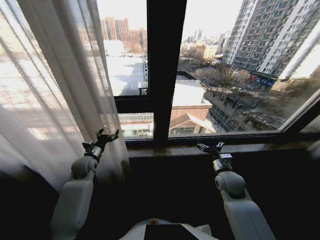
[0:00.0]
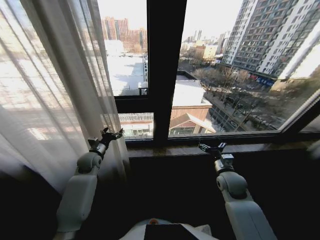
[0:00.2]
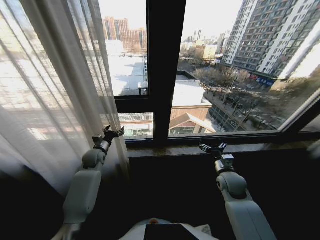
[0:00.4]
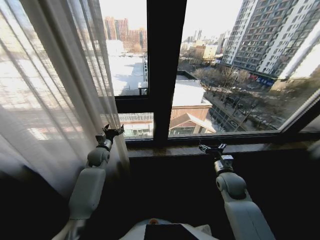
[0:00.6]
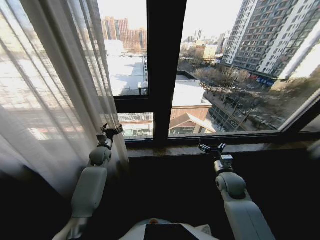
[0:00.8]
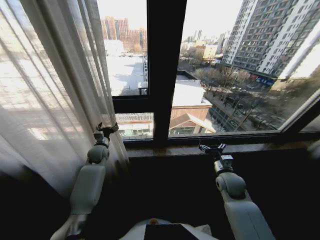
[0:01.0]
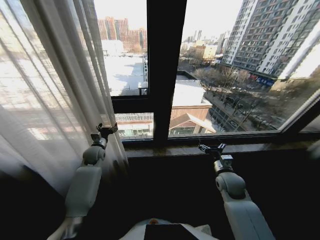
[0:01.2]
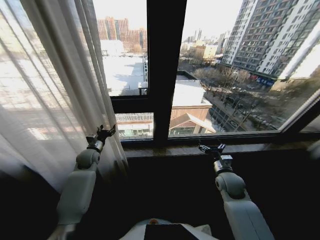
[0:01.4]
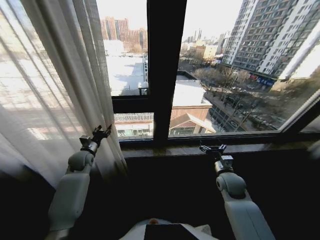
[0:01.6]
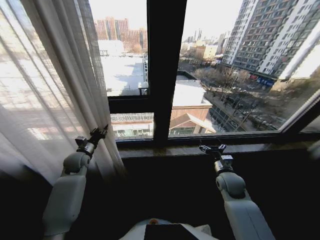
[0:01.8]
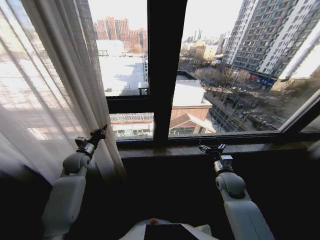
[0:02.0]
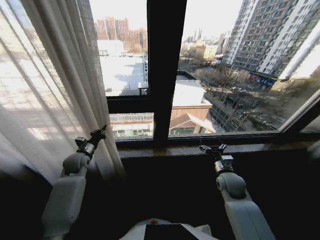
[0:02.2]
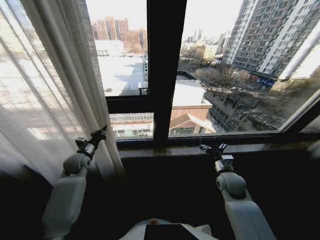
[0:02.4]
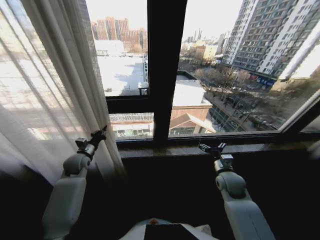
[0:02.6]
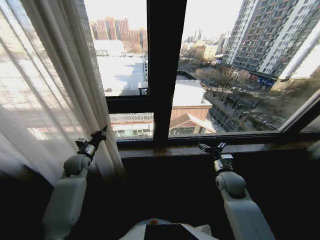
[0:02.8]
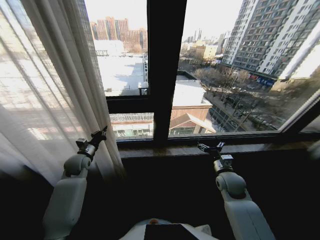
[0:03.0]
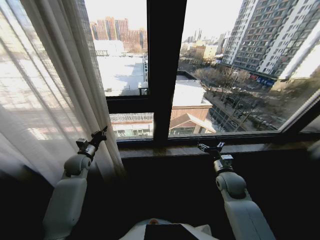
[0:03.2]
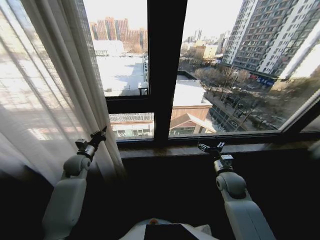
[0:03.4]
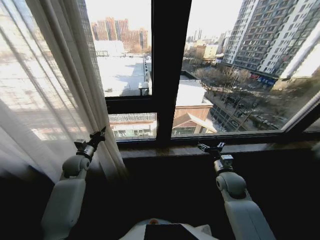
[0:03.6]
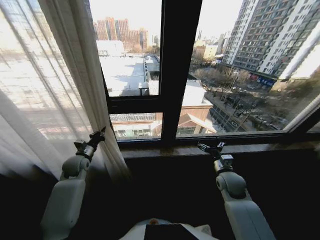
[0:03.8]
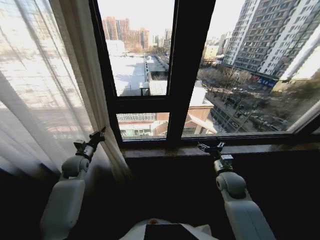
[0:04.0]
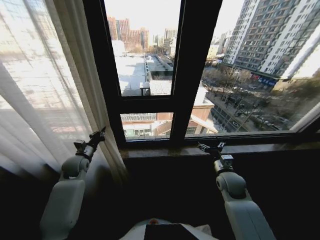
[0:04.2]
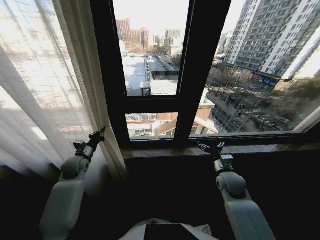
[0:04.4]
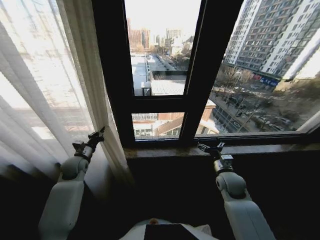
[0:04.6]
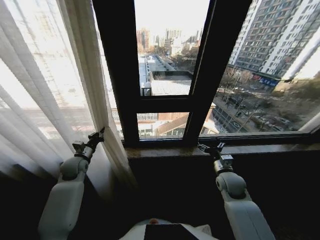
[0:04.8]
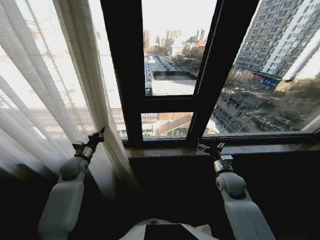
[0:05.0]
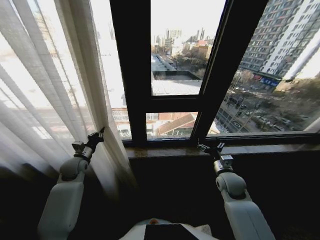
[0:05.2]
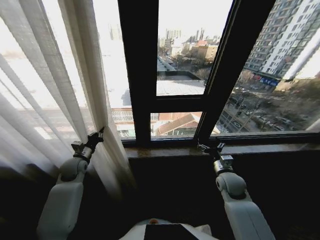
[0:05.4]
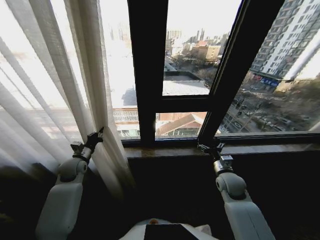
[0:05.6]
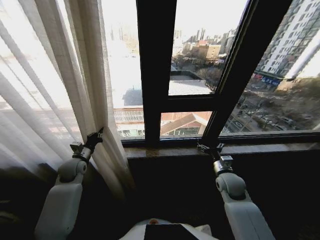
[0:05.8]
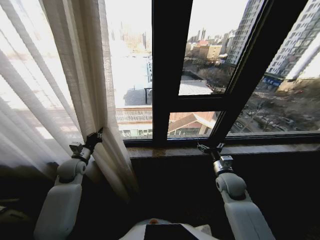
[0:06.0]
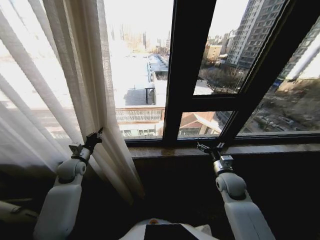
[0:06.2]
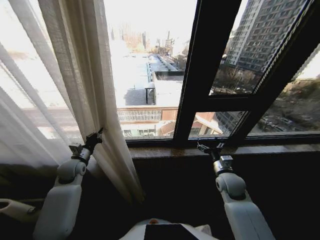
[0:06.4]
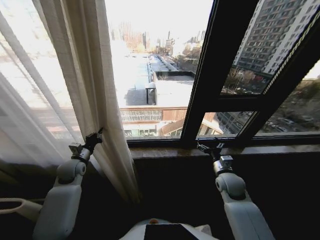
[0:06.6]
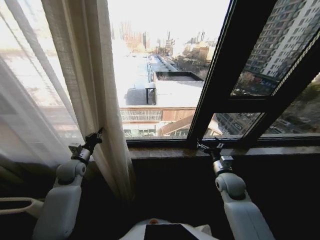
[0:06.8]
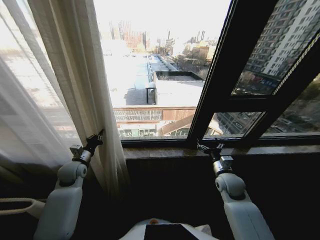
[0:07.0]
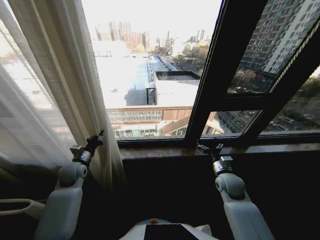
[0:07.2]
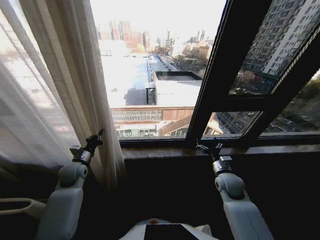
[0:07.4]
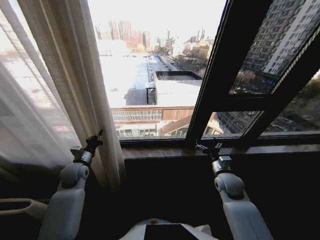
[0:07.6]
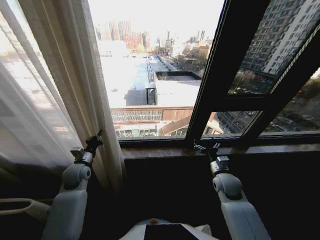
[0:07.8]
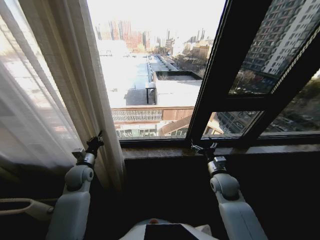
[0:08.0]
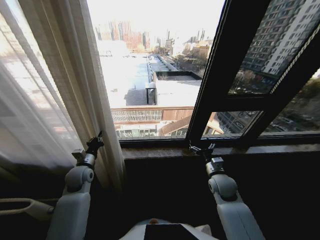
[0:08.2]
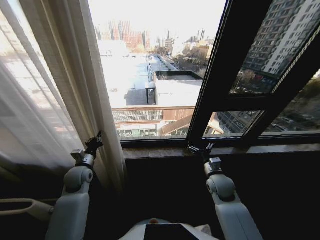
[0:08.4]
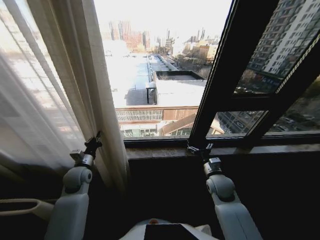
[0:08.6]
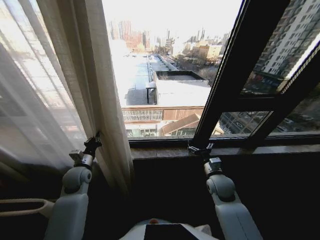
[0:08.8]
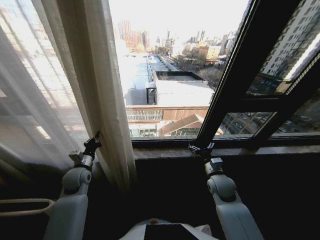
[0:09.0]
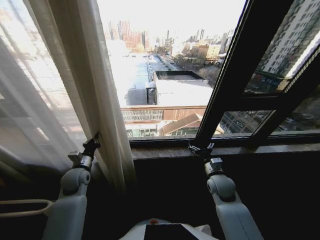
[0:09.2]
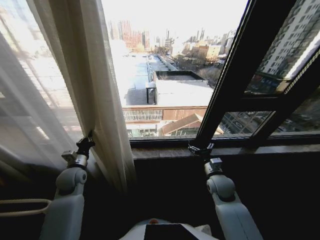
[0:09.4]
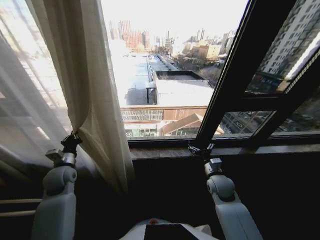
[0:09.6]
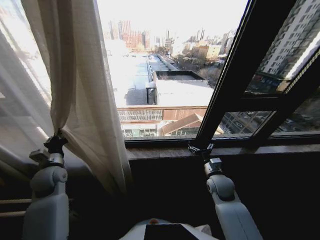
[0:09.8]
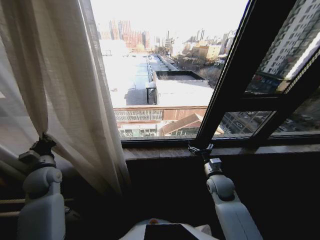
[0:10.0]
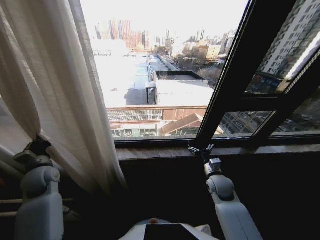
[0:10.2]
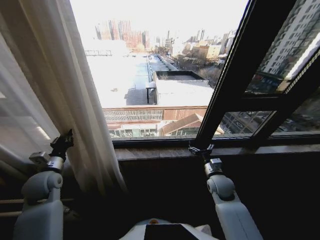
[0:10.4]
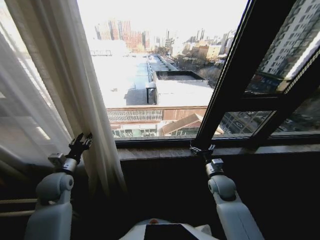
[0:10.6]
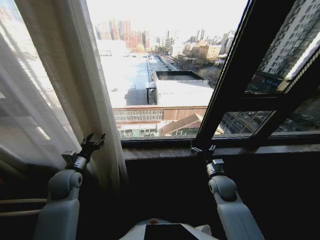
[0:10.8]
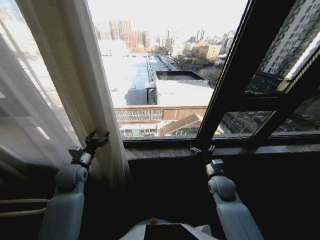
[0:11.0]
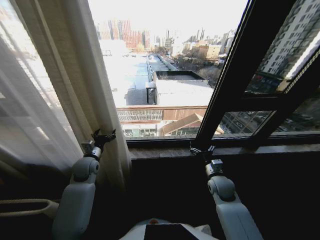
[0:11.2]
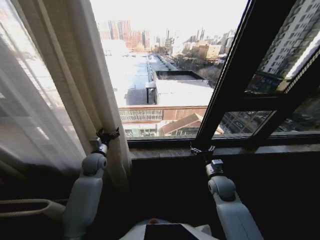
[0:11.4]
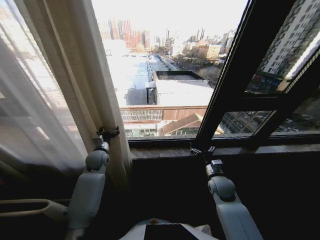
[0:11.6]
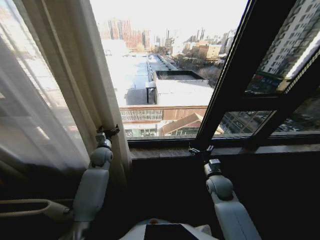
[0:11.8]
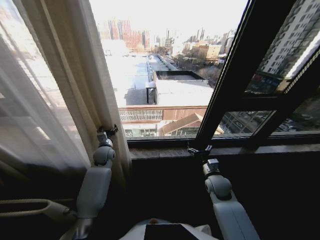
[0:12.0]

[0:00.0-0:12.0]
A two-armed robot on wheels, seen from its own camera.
Task of the whole recording: Open the curtains by pulling them apart, changing their state from closed to fully open.
0:00.0 to 0:01.6: The left gripper closes up.
0:01.6 to 0:03.0: The left gripper closes.
0:09.0 to 0:10.4: The left gripper moves to the left and upward, about 10 cm.
0:10.4 to 0:12.0: The left gripper shifts about 20 cm to the right and forward, and opens.

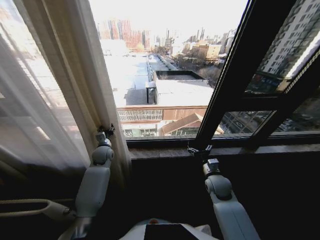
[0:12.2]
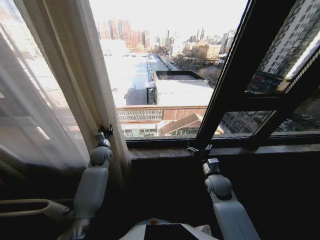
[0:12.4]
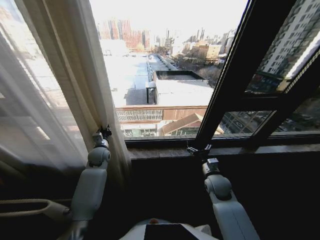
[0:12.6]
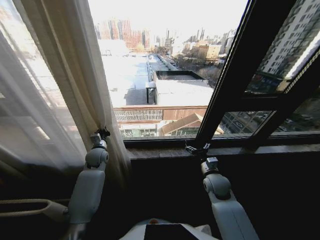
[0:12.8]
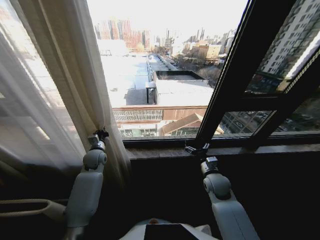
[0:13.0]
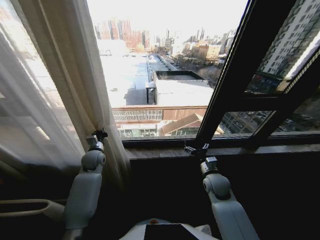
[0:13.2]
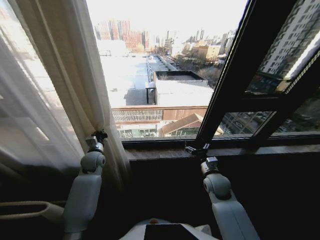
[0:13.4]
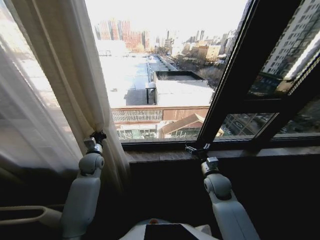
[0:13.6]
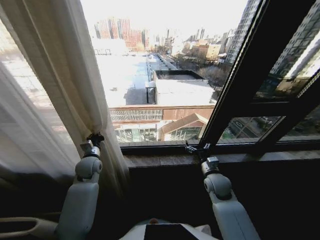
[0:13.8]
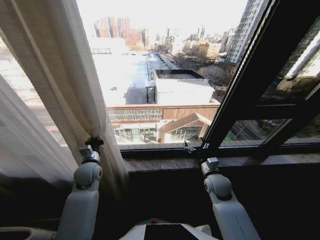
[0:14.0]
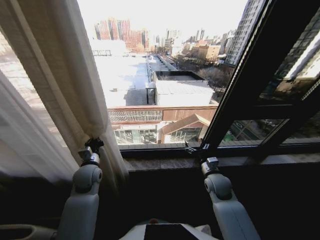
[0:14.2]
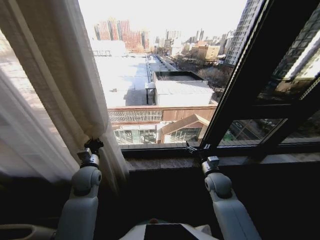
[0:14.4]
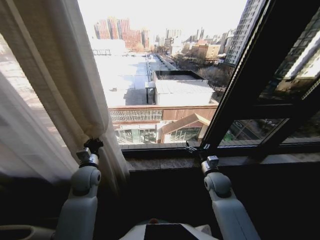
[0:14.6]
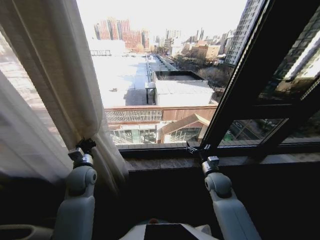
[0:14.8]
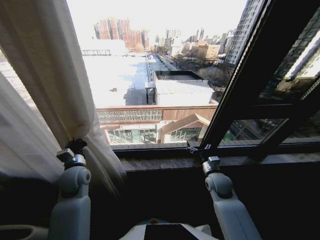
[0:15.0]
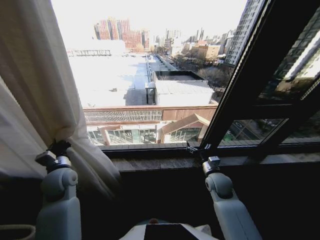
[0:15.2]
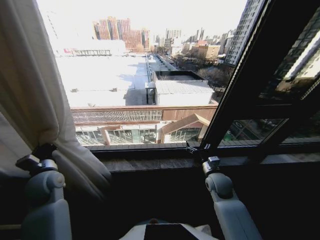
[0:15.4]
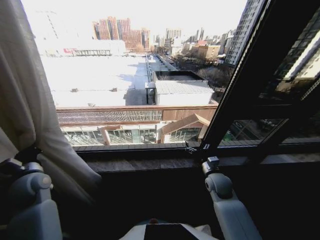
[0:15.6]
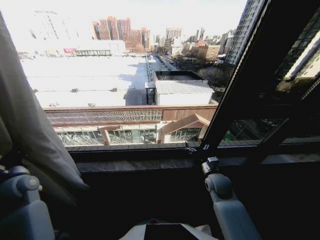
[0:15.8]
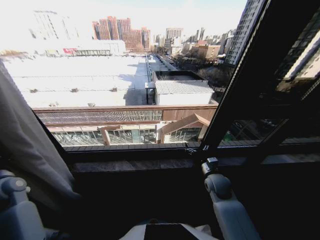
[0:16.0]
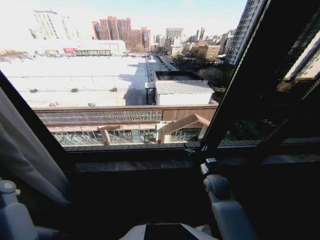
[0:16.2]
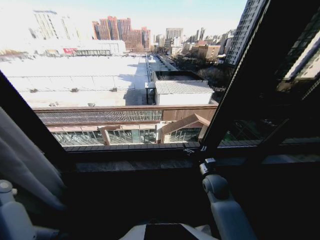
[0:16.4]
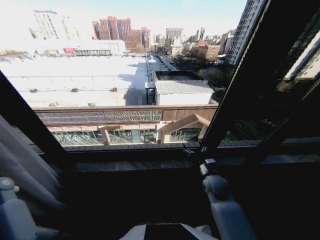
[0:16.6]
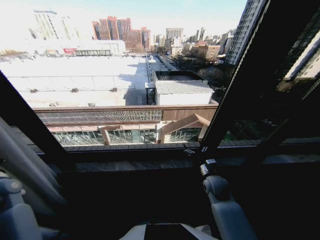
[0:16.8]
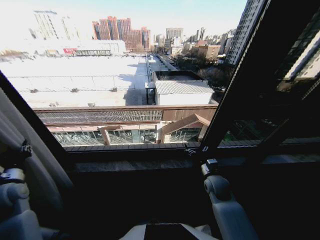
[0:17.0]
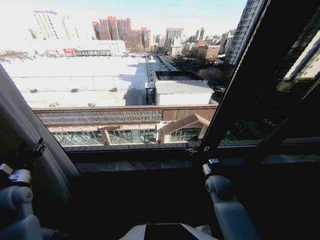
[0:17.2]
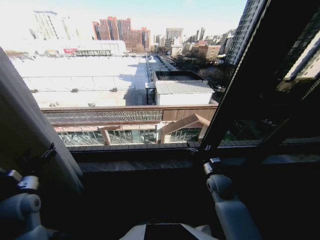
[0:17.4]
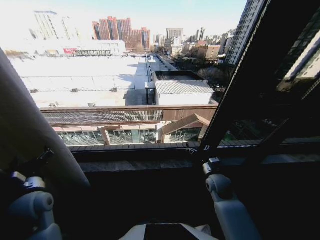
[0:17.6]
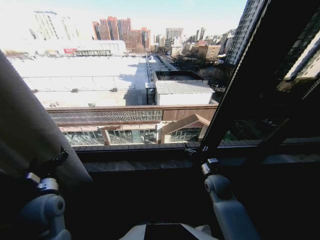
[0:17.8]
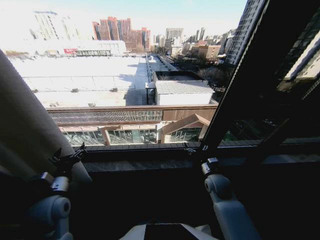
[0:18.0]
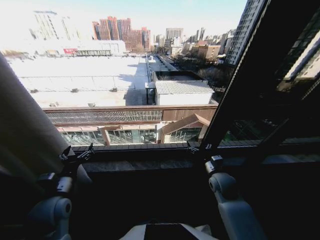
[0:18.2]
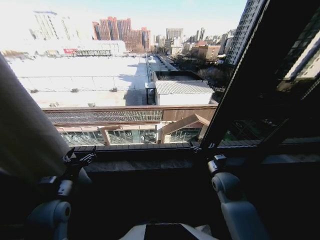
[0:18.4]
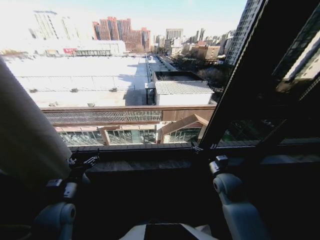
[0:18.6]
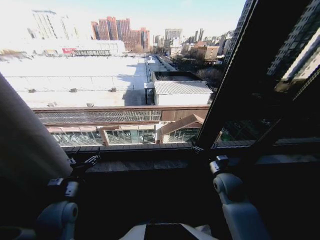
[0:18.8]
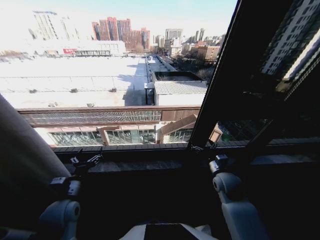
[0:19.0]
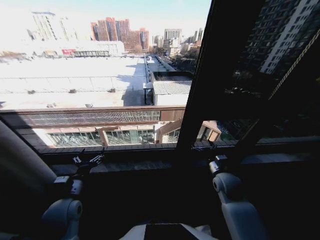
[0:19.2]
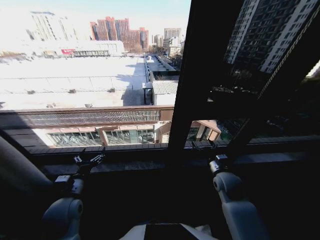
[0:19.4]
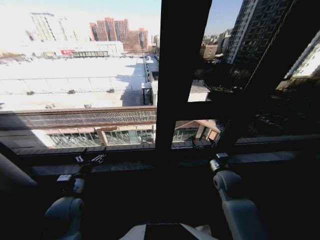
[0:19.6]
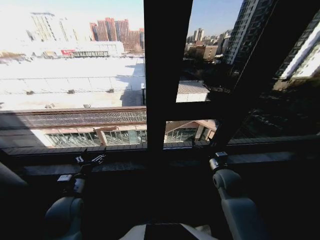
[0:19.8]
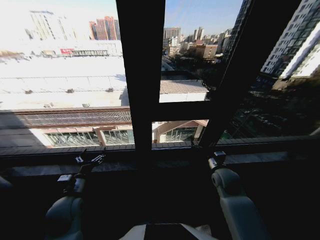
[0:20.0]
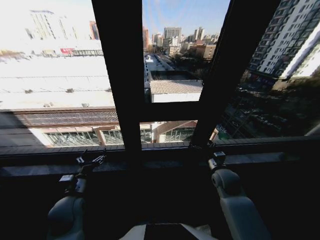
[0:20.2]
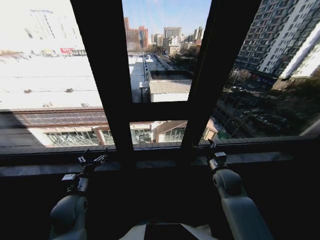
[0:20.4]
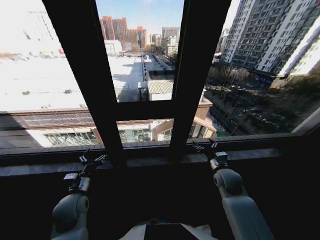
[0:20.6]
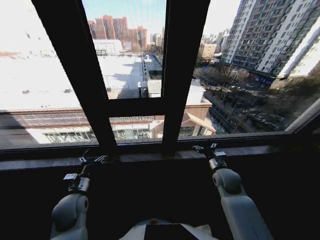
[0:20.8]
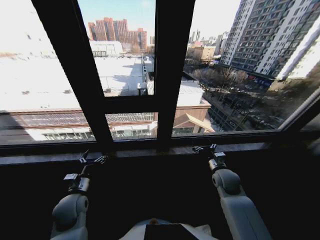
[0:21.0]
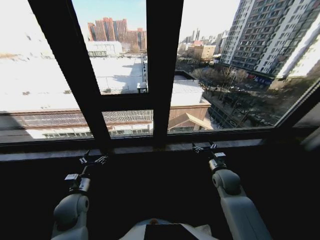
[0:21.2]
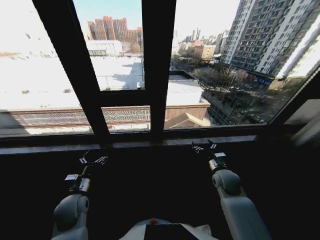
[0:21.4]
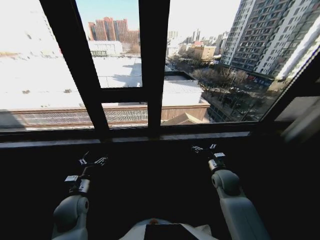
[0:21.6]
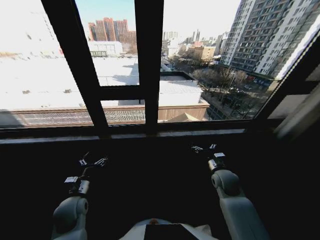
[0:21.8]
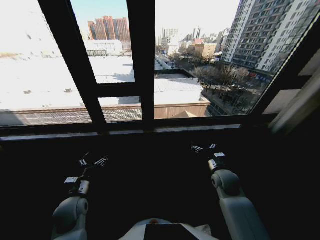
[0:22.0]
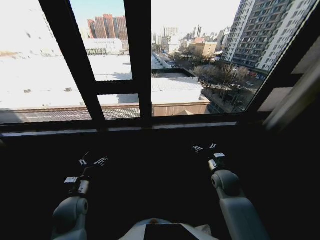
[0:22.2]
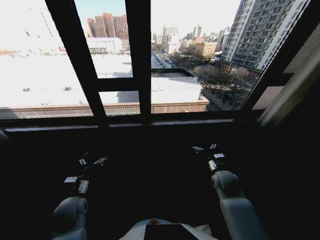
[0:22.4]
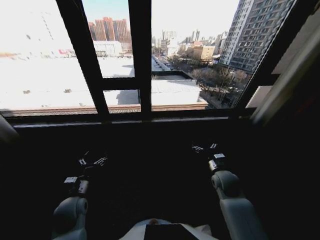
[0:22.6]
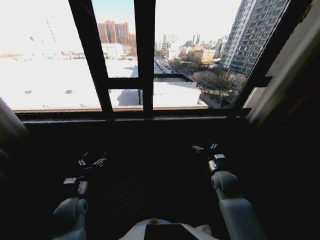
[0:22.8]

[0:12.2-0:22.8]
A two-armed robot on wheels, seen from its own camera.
Task of the whole recording: Open the curtains by pulling them apart, changing their state from closed to fully open.
0:12.2 to 0:13.8: The left gripper is displaced backward by some 10 cm, and closes.
0:13.8 to 0:15.2: The left gripper heads backward and to the left, covering about 10 cm.
0:15.2 to 0:16.8: The left gripper moves to the left, roughly 20 cm.
0:16.8 to 0:18.2: The left gripper moves to the right, some 20 cm, and opens.
